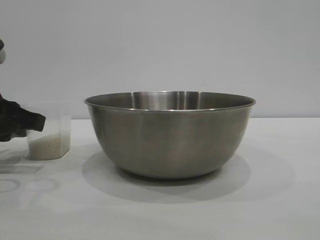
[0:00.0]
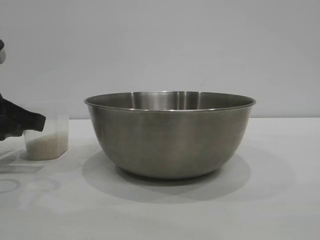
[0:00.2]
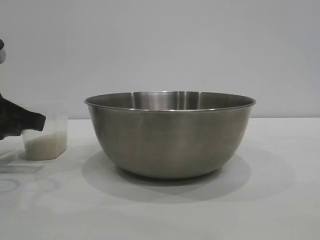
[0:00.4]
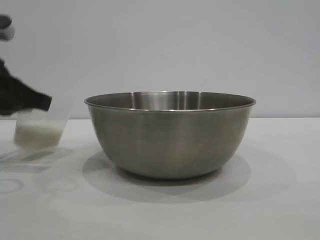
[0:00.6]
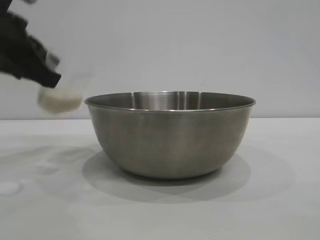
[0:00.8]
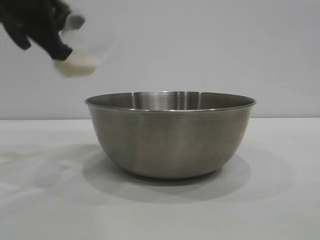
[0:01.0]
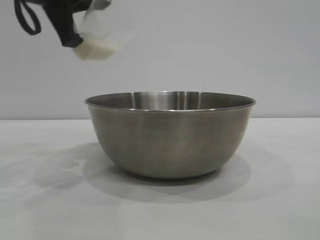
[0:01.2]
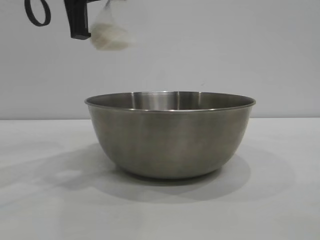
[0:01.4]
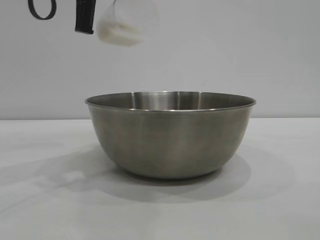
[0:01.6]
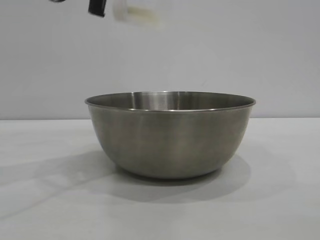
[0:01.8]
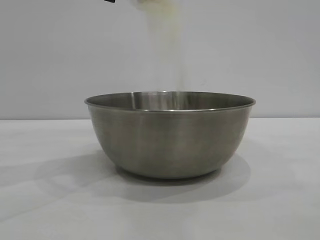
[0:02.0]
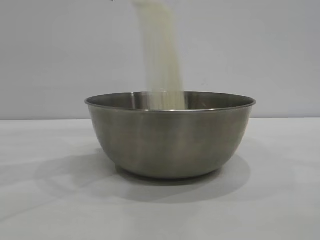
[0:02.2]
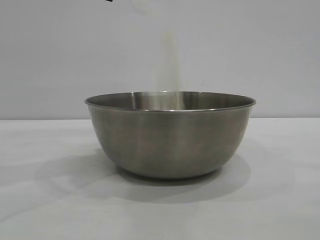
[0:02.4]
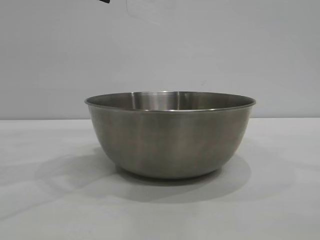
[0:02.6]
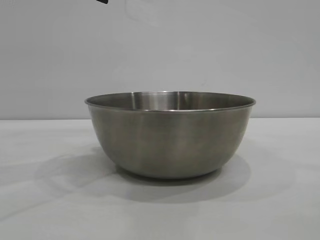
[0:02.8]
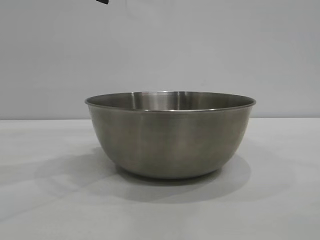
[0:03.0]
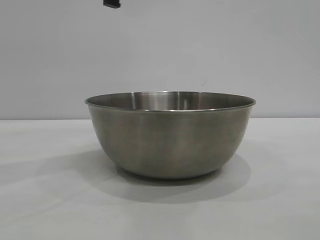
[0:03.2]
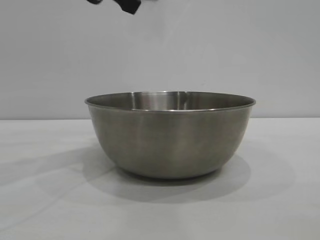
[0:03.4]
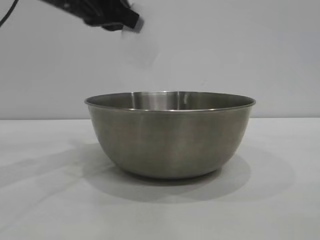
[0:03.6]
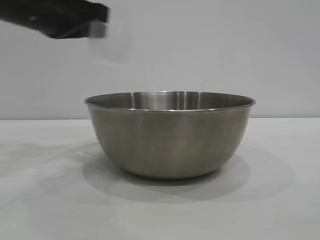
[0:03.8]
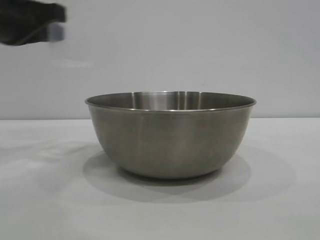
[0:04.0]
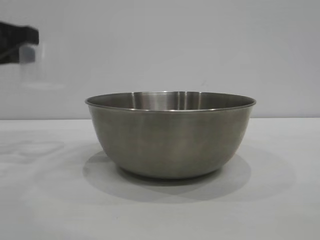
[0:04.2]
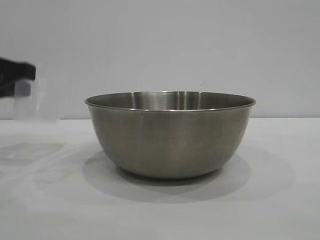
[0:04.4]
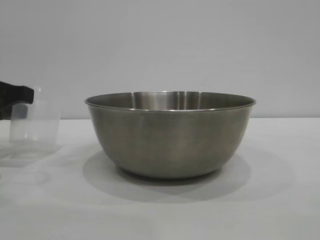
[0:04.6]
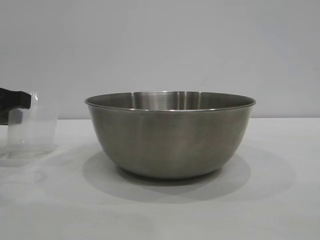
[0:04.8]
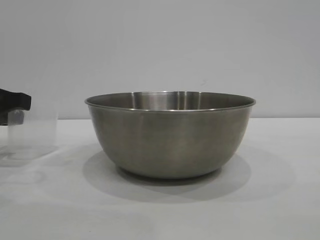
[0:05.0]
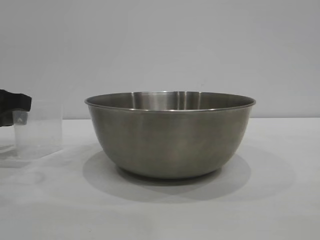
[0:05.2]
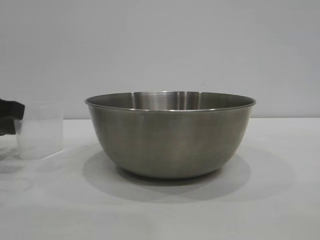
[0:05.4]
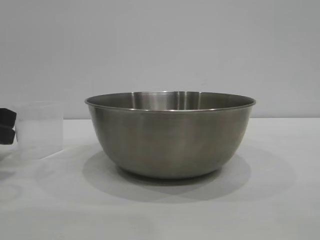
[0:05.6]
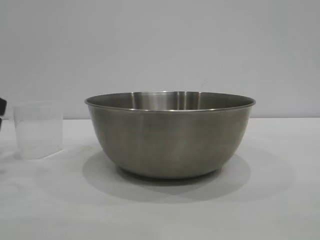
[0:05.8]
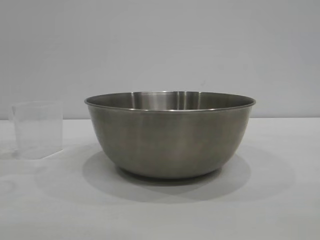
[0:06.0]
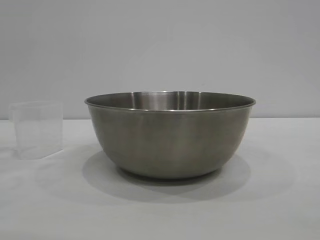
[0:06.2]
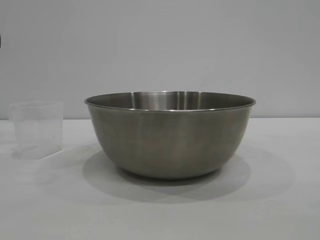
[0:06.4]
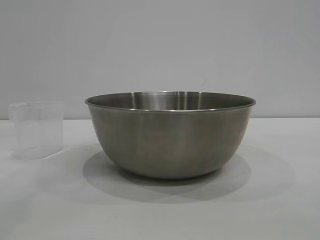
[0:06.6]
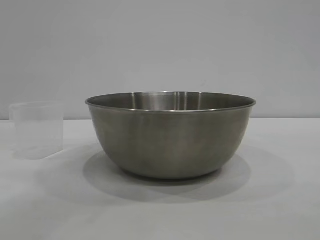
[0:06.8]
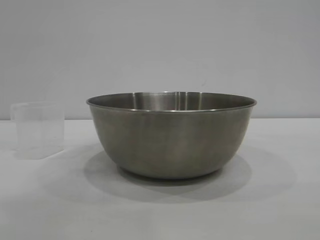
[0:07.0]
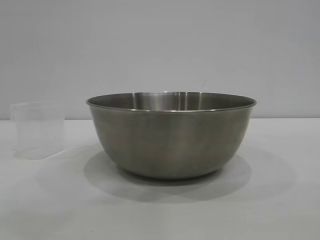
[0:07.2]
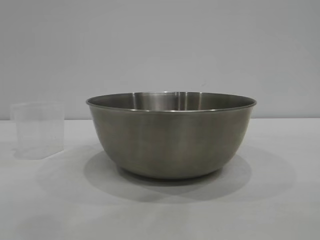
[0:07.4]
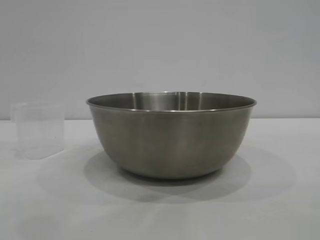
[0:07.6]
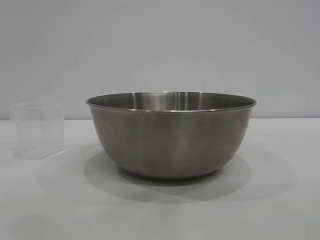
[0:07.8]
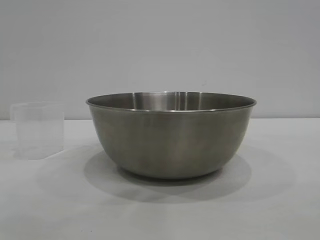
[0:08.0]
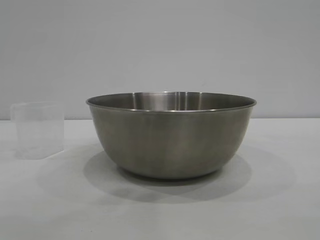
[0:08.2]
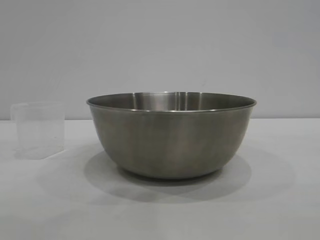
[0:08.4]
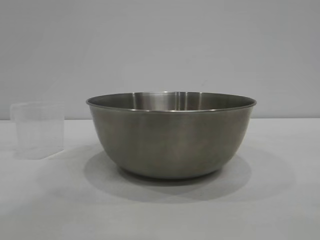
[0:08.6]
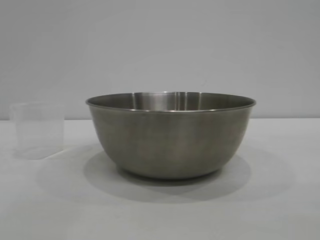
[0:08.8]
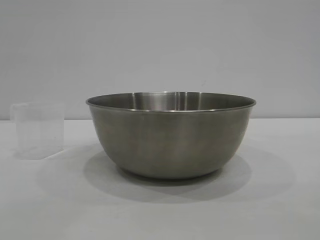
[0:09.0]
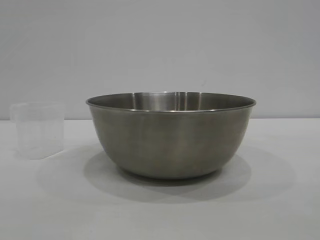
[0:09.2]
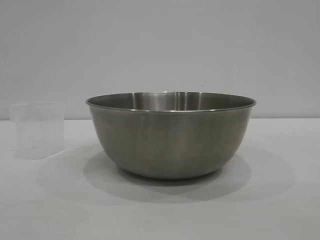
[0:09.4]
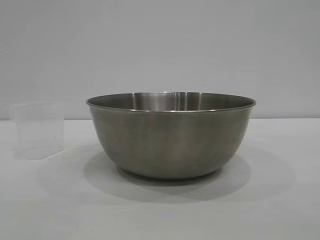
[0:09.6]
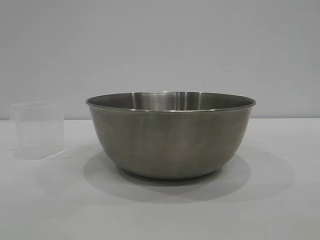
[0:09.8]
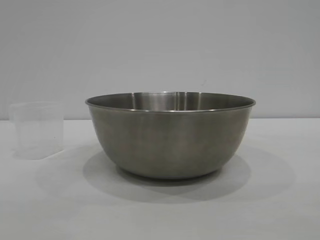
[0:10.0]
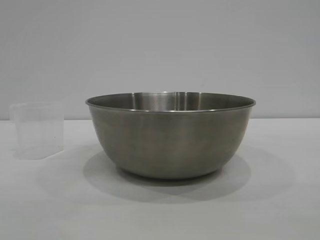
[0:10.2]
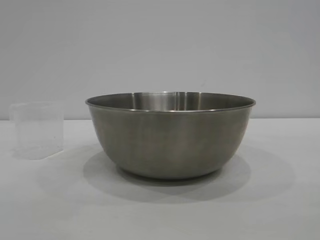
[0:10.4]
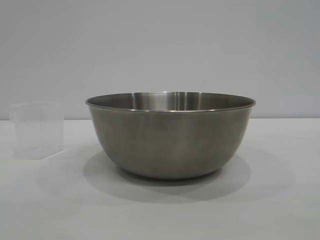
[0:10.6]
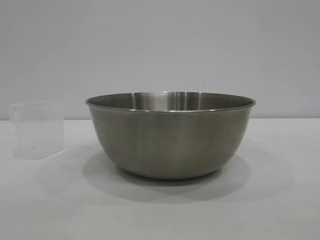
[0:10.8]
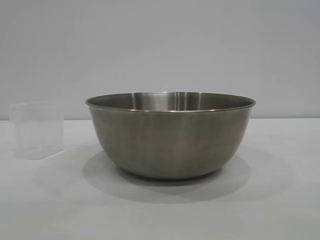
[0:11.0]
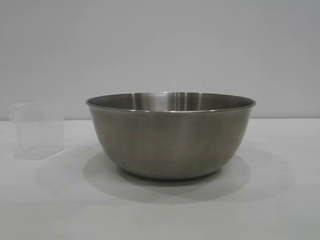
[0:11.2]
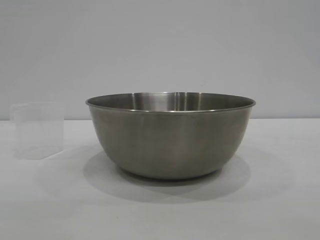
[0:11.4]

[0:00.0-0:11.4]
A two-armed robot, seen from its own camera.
Task of the whole recording: the right gripper grasp the rice container and place it in the center of the table, the left gripper grasp the rice scoop and pour the rice into the rice container.
Step, 0:00.8 to 0:03.4: Pour the rice from the cup into the bowl with the left gripper.
Step, 0:03.6 to 0:06.0: Place the cup on the table with the left gripper.
